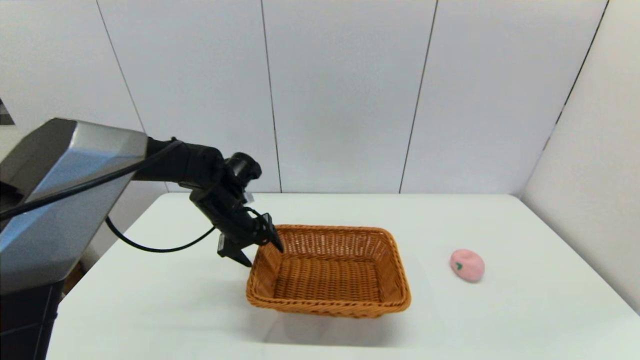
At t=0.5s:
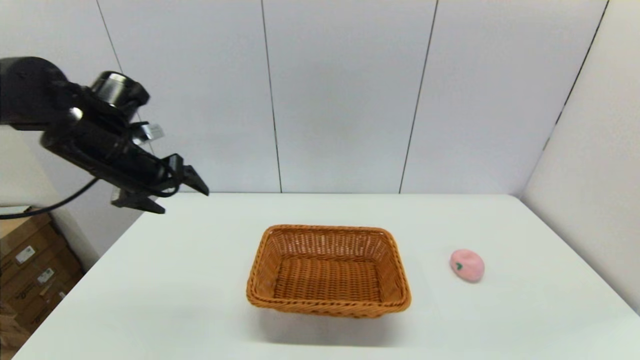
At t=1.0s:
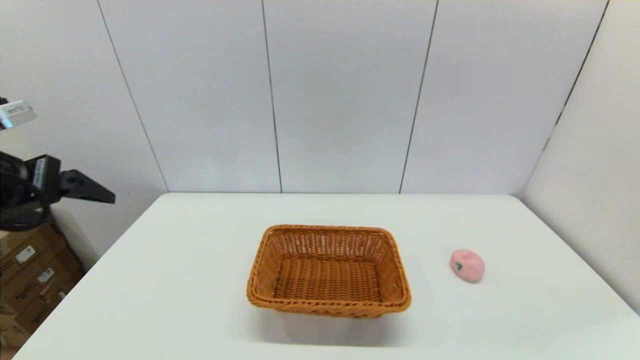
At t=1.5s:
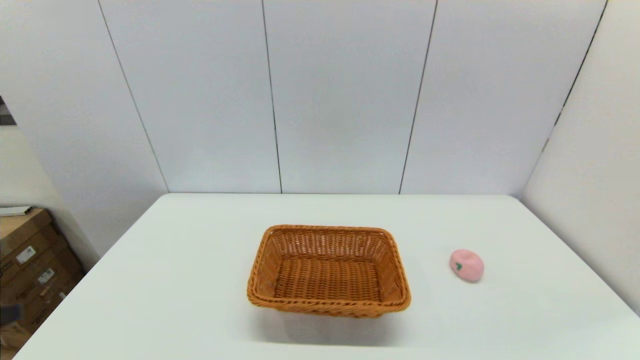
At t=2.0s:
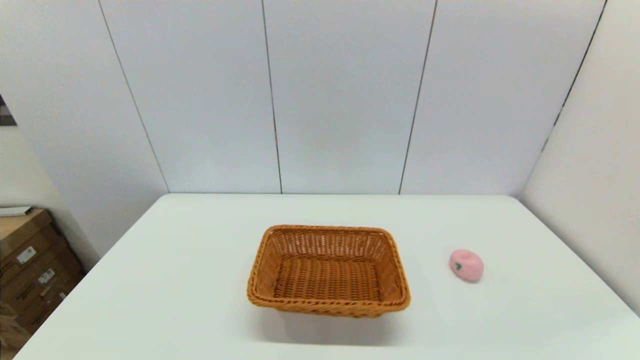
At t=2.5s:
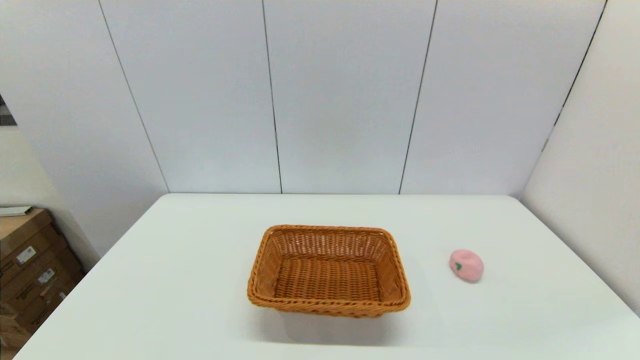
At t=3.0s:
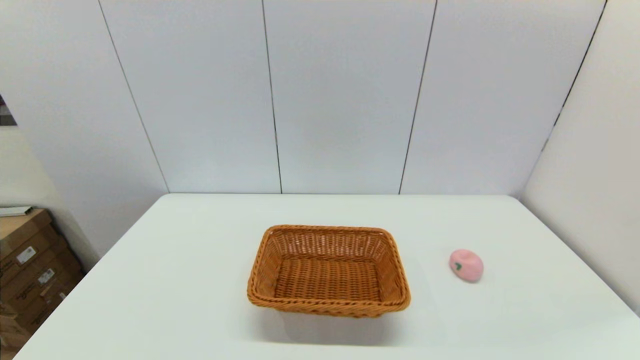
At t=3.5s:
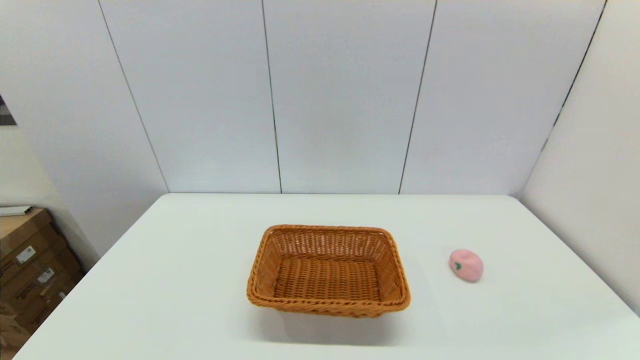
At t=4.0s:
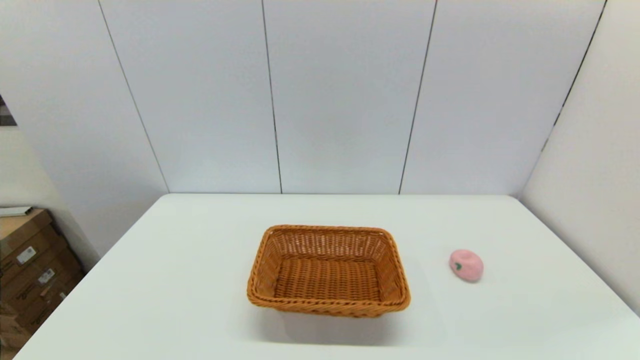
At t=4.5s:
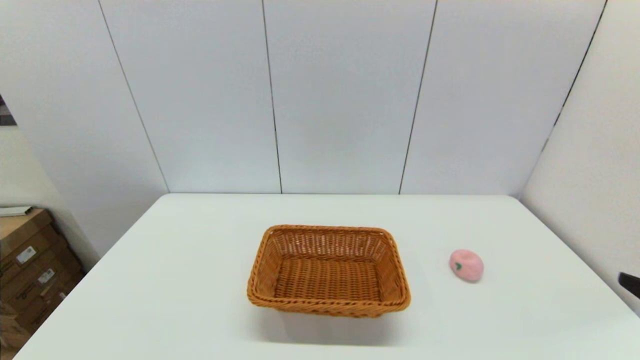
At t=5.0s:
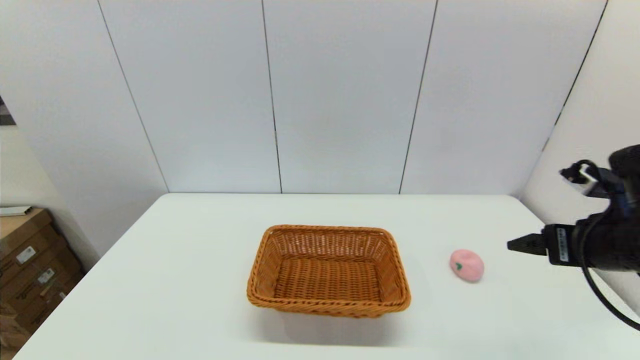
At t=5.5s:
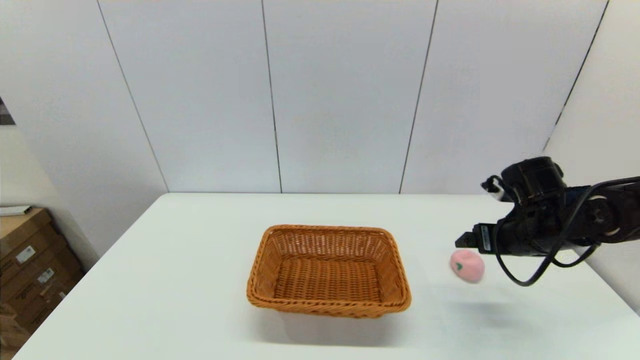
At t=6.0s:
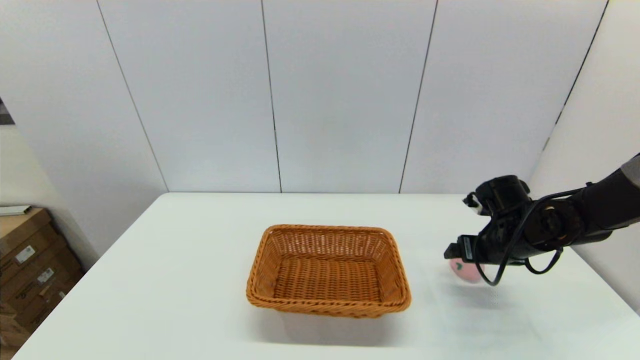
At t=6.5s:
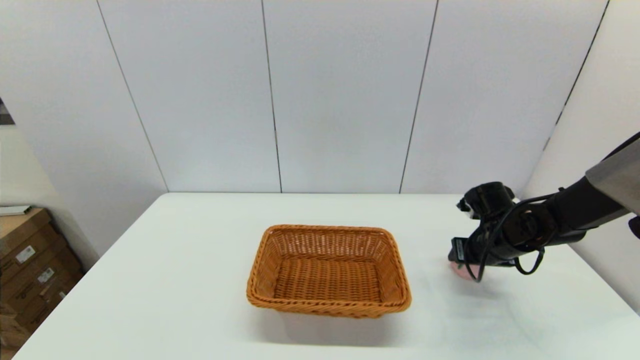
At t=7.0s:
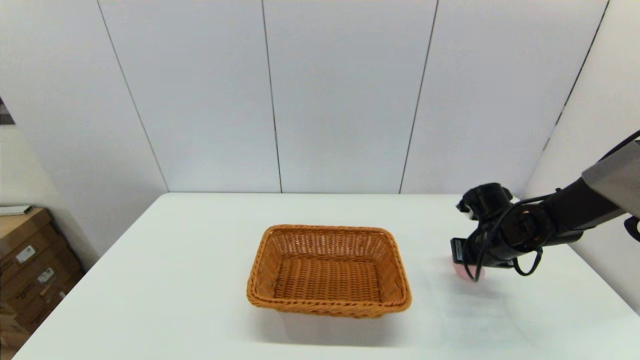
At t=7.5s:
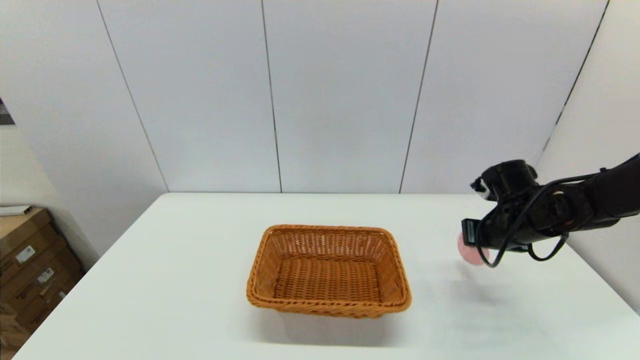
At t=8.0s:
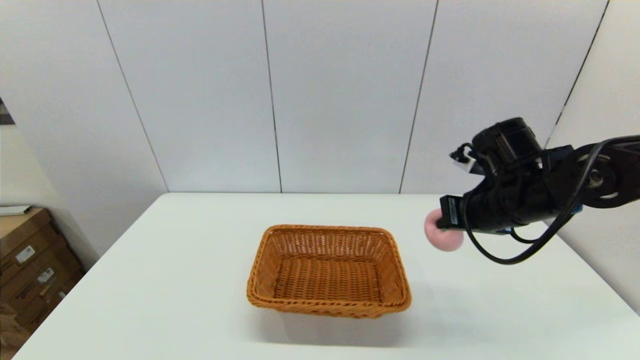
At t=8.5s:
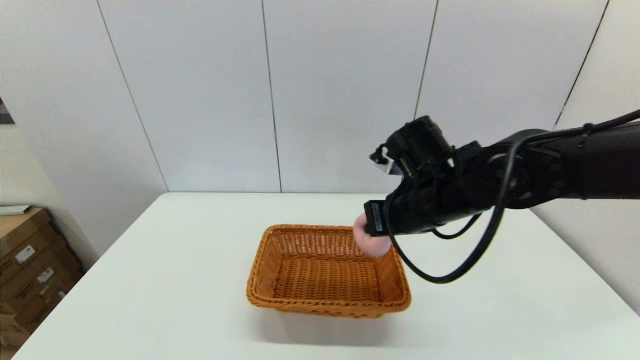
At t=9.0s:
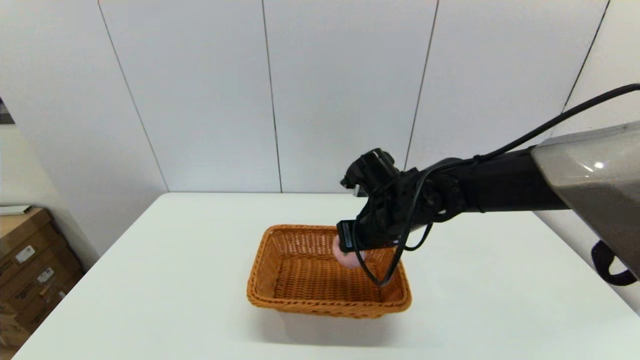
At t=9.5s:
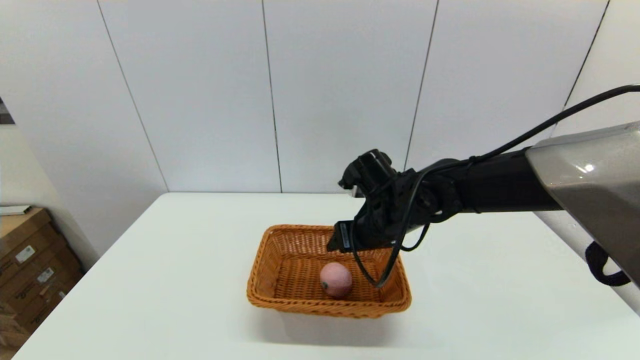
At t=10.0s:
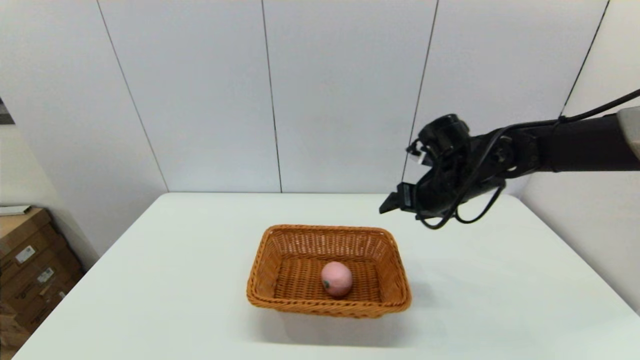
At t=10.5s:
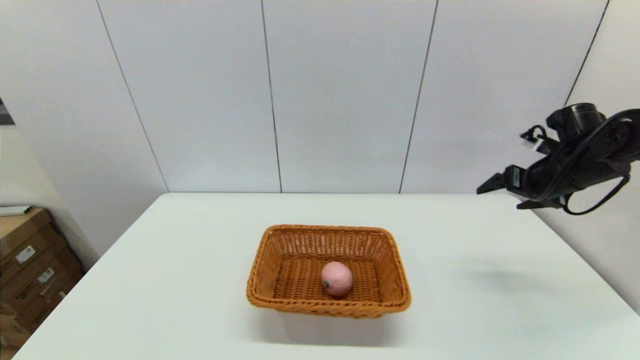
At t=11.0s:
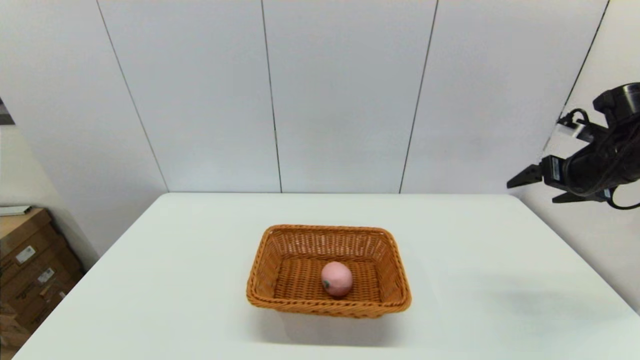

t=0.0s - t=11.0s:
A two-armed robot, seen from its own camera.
Step, t=0.0s - t=6.5s: Grasp the peach with the right gripper.
Step, t=7.5s - t=9.0s: Place the peach into the light basket with the right gripper.
t=0.0s - t=2.0s: The left gripper goes about 40 cm backward.
t=3.5s - t=5.5s: The right gripper moves forward, roughly 35 cm.
t=5.5s - t=7.5s: The right gripper closes.
t=7.5s - t=9.0s: The right gripper moves to the left, about 20 cm.
t=9.0s - t=11.0s: The right gripper heads to the right, covering about 30 cm, and opens.

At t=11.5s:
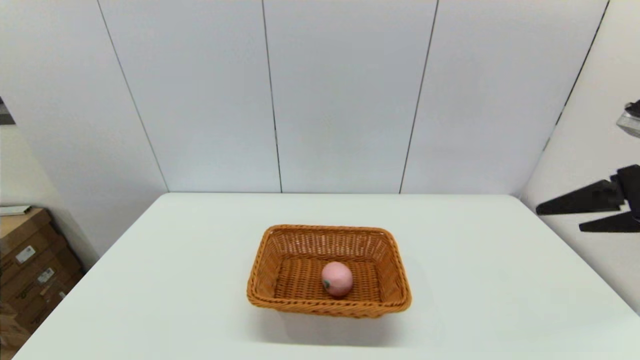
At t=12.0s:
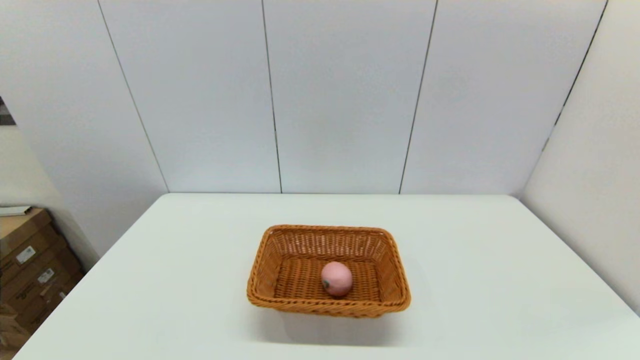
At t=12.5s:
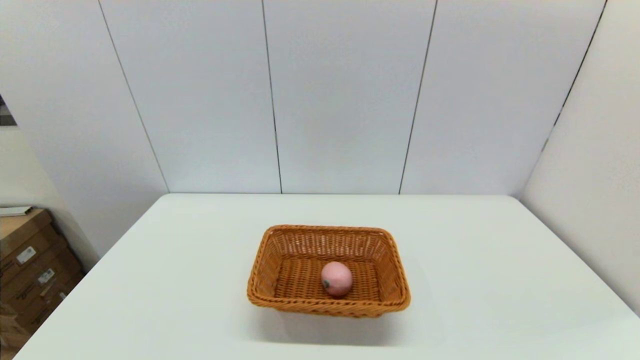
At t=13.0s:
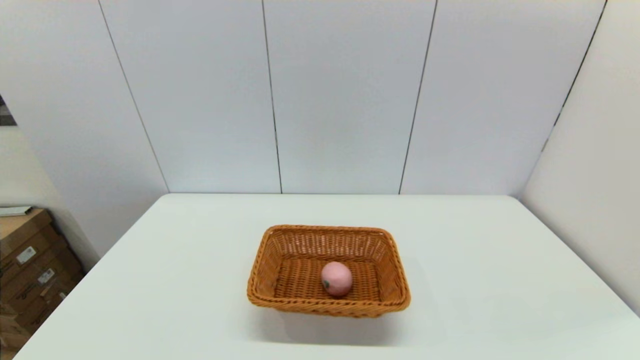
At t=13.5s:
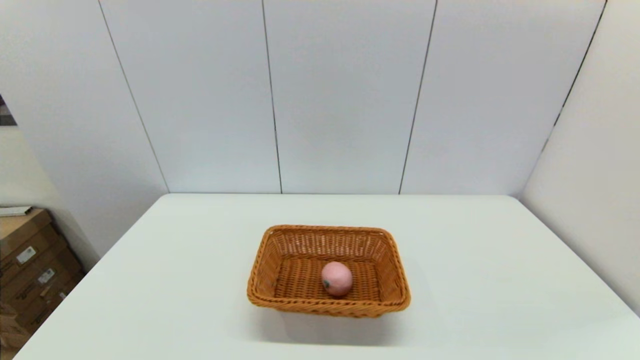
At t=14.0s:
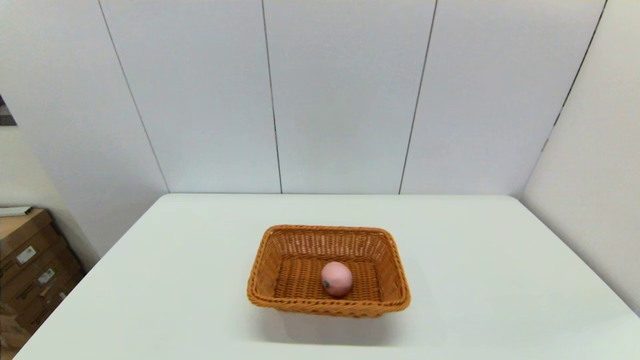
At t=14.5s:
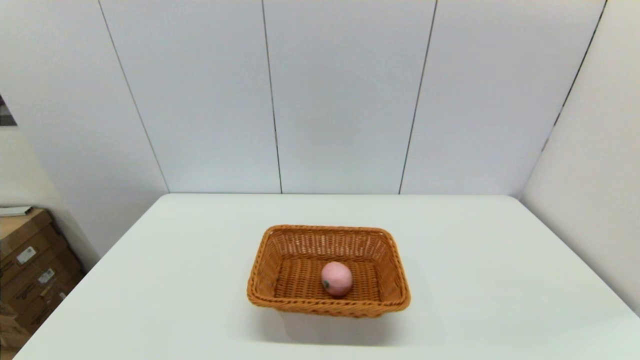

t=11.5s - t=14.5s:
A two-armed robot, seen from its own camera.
t=11.5s - t=13.0s: The right gripper heads backward and downward, covering roughly 25 cm.
